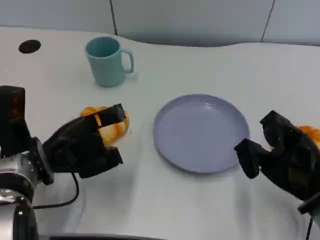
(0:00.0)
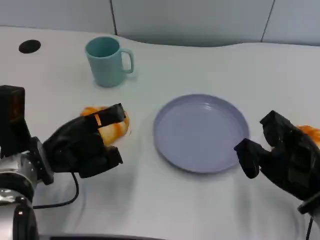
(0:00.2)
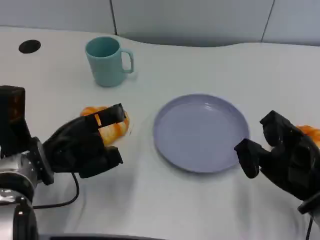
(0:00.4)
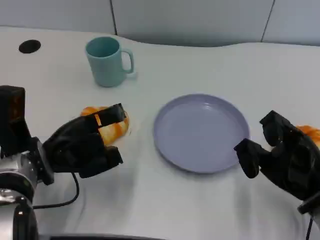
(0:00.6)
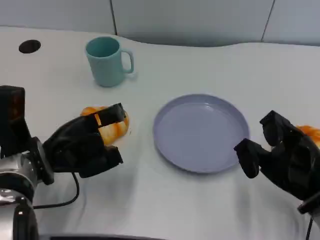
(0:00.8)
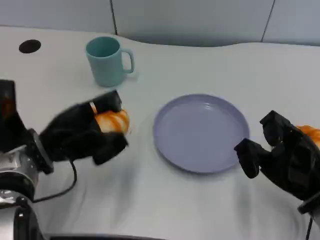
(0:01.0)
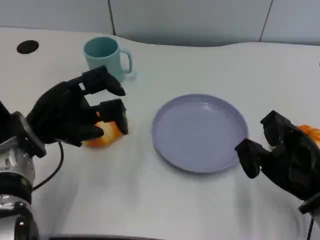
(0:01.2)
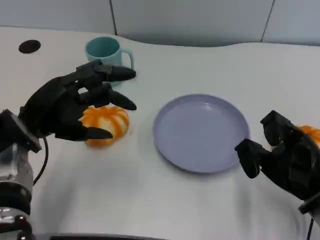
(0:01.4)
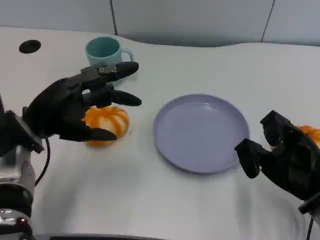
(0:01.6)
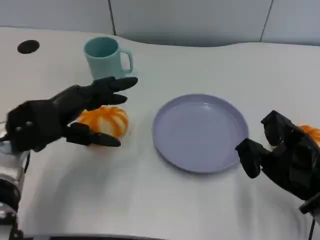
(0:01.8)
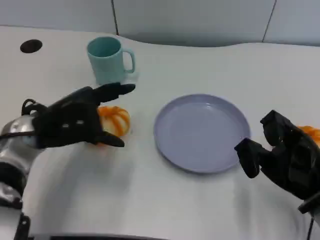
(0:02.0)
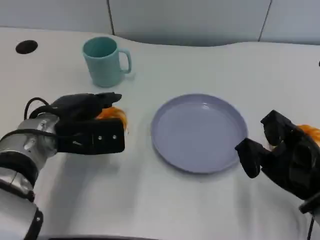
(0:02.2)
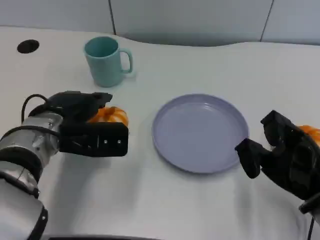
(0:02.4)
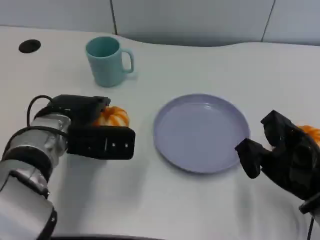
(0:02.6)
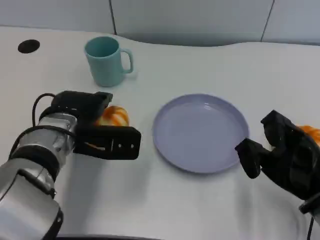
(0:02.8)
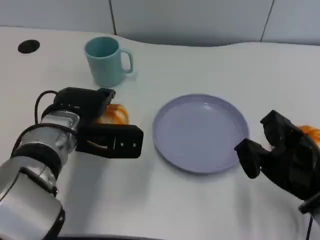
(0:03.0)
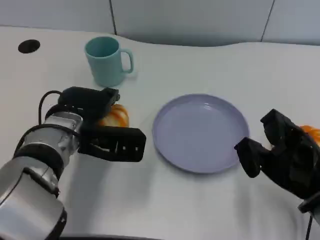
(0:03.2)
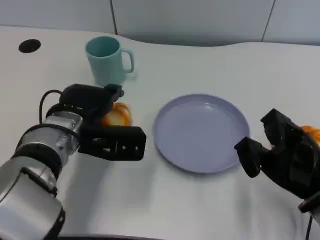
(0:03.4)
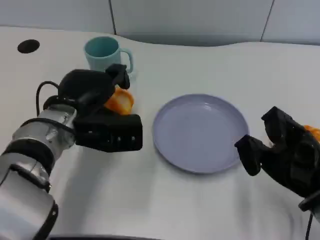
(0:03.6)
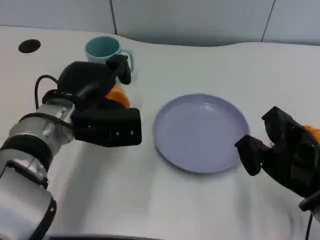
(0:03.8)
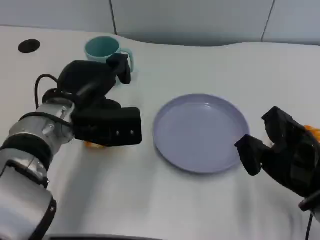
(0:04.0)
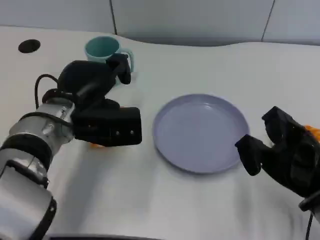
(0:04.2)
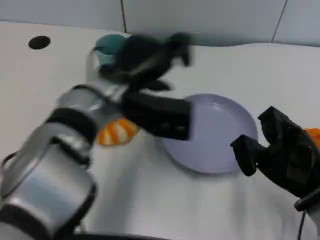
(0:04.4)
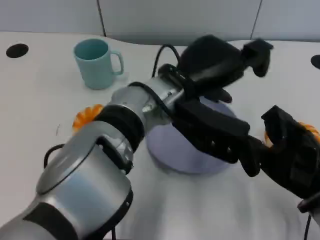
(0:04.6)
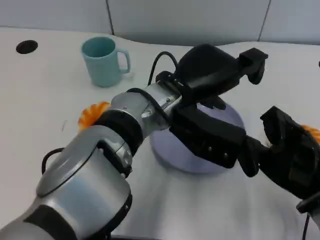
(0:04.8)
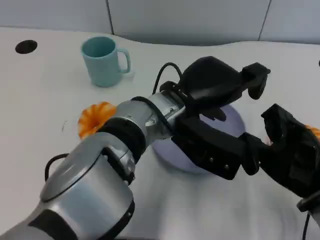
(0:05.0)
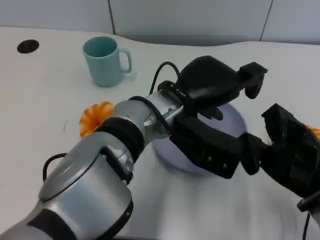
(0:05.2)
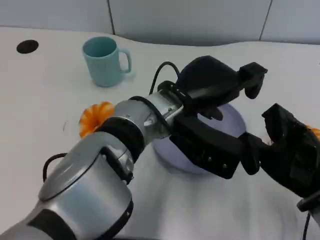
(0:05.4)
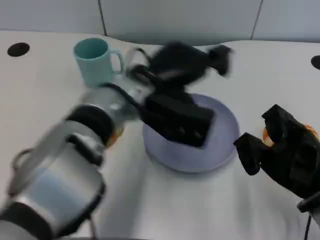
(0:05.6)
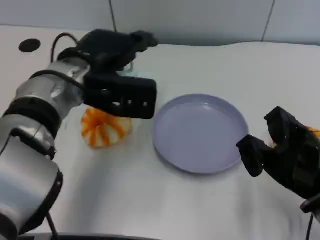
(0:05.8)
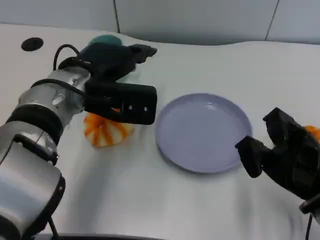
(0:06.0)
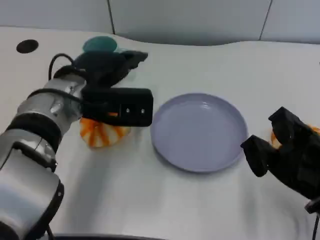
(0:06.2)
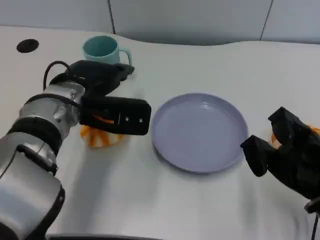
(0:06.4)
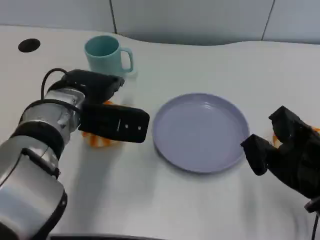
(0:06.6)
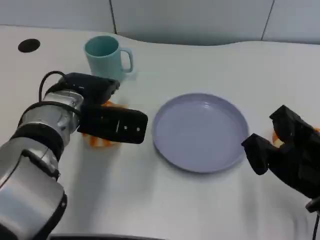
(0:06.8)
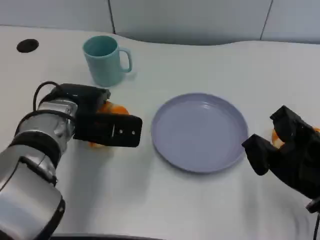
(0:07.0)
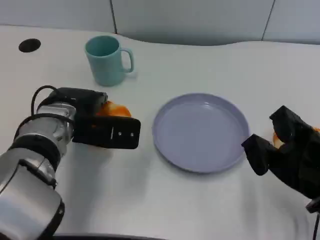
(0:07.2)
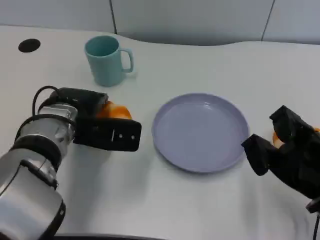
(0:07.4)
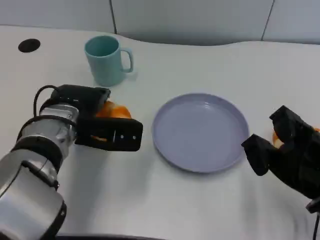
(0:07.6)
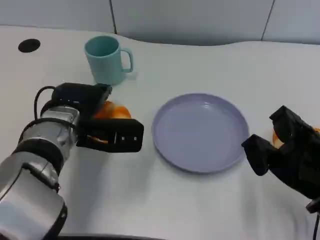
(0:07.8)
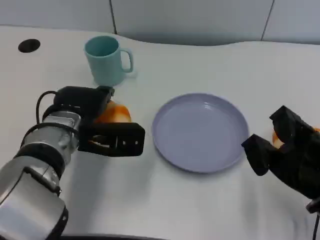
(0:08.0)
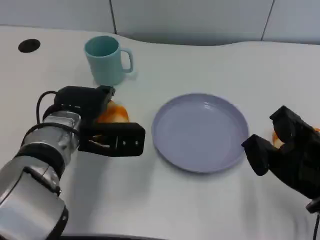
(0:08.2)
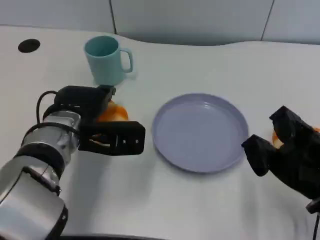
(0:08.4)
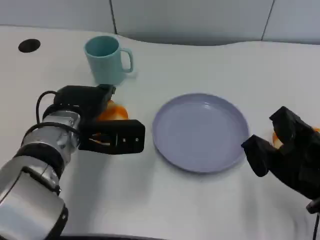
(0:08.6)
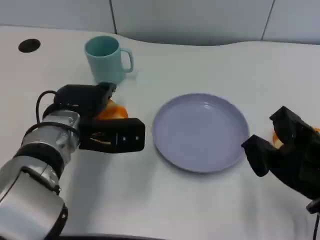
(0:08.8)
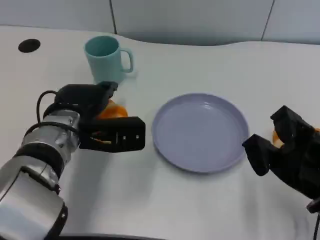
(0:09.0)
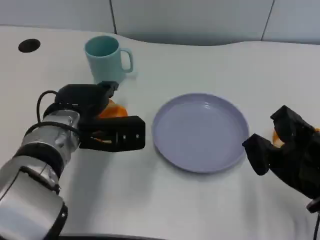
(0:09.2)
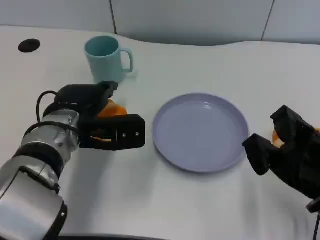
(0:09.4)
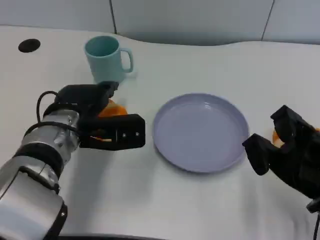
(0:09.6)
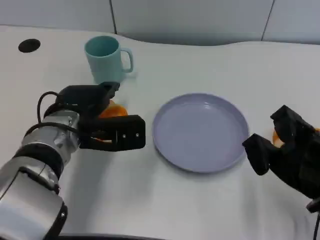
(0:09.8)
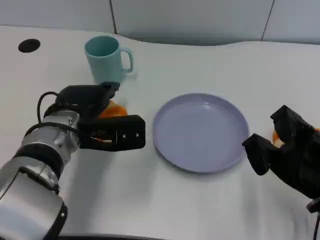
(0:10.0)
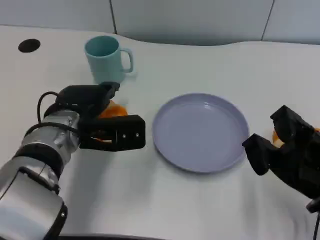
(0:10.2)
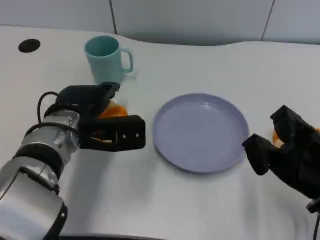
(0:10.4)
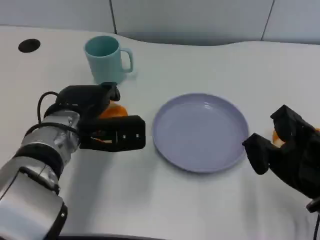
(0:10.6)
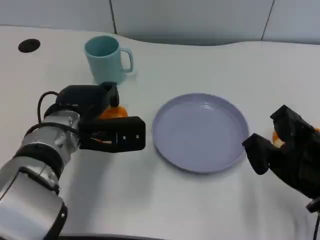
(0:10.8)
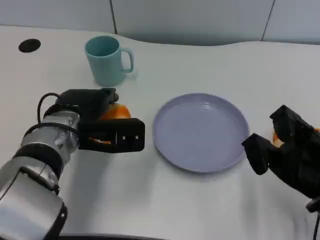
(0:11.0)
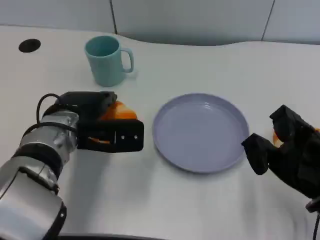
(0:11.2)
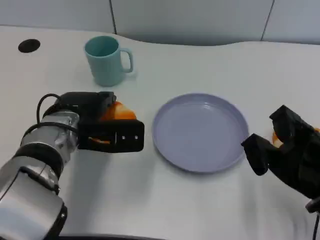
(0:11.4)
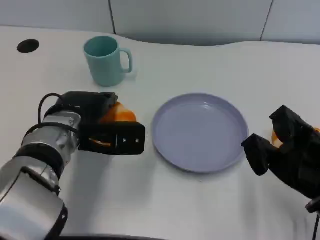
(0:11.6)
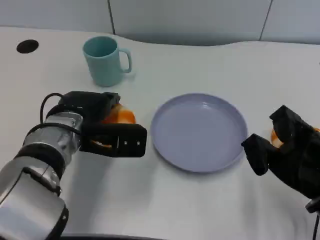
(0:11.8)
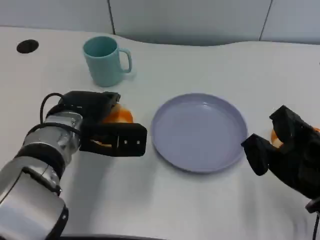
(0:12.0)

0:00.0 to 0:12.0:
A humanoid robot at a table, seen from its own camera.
Task of the whole recording: Grasp the bread from the table and place it into the plate.
0:00.0 to 0:01.6: The left hand shifts about 5 cm upward.
0:01.6 to 0:03.0: The left hand moves to the right, some 5 cm.
0:03.0 to 0:04.4: The left hand heads to the right and upward, covering roughly 15 cm.
0:04.4 to 0:06.0: The left hand travels to the left by approximately 10 cm.
0:06.0 to 0:07.6: The left hand heads downward, covering about 5 cm.
0:07.6 to 0:09.0: The hands move only a little.
0:09.0 to 0:10.4: Both hands stay about where they are.
0:10.4 to 0:12.0: The hands stay close to where they were, moving slightly.

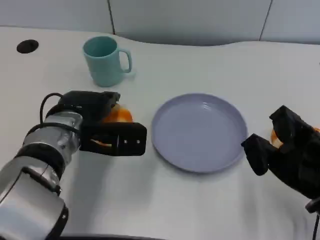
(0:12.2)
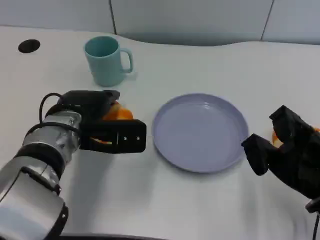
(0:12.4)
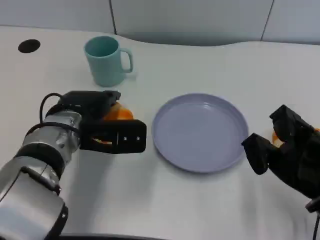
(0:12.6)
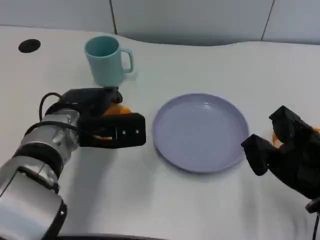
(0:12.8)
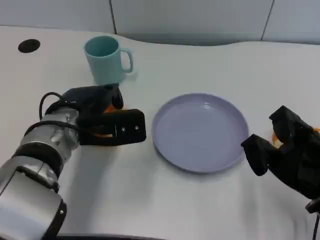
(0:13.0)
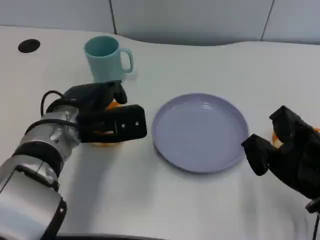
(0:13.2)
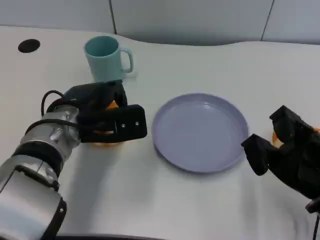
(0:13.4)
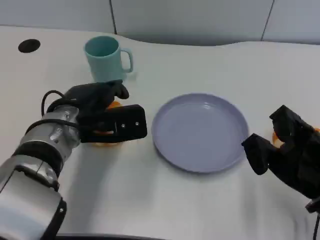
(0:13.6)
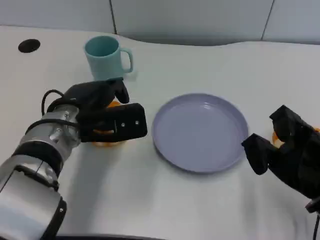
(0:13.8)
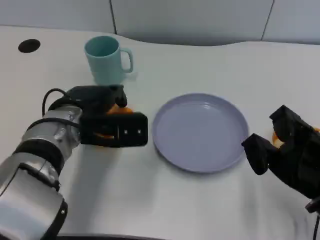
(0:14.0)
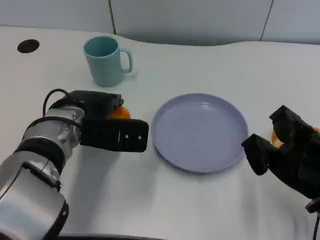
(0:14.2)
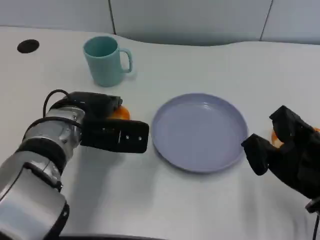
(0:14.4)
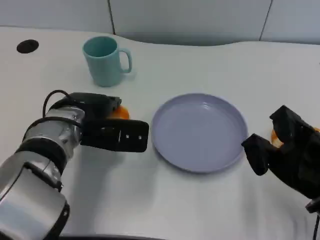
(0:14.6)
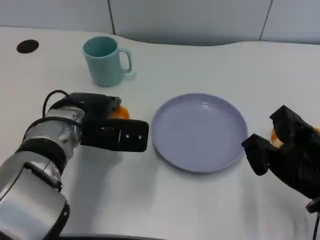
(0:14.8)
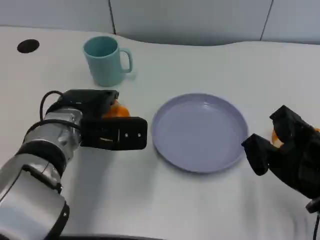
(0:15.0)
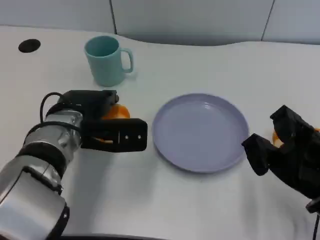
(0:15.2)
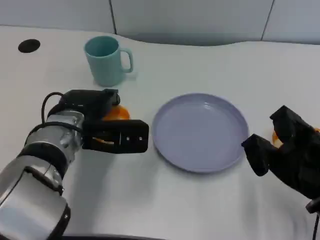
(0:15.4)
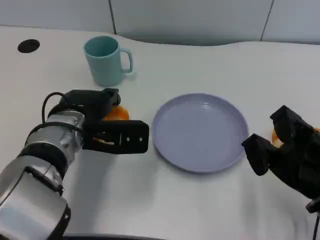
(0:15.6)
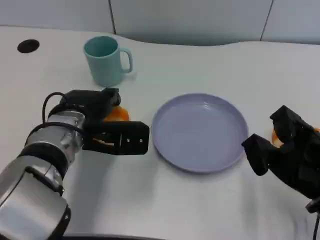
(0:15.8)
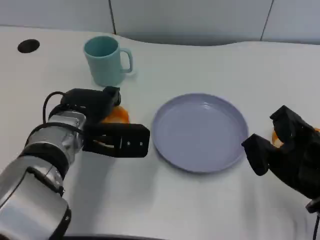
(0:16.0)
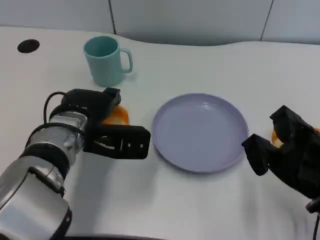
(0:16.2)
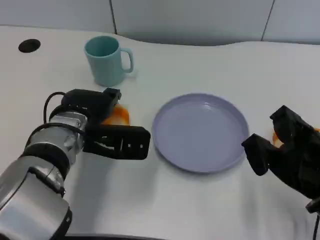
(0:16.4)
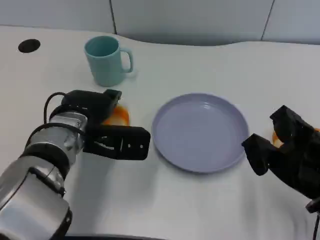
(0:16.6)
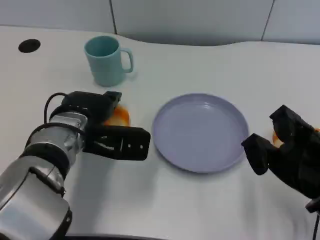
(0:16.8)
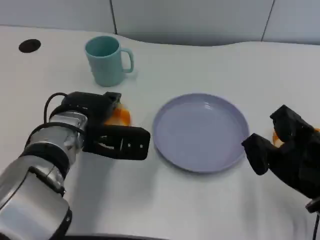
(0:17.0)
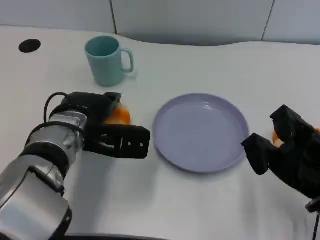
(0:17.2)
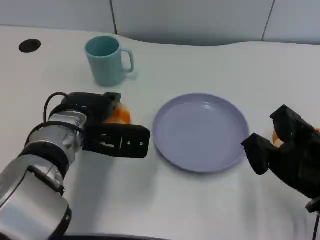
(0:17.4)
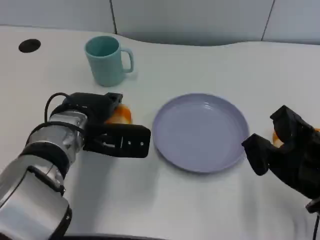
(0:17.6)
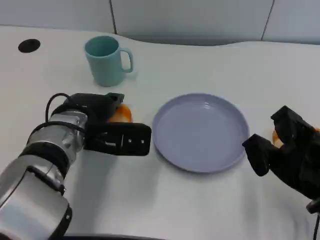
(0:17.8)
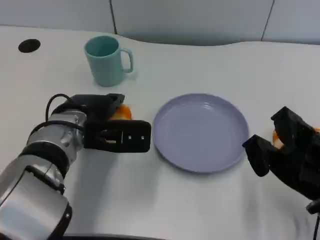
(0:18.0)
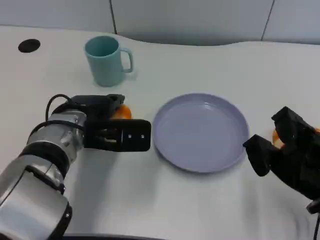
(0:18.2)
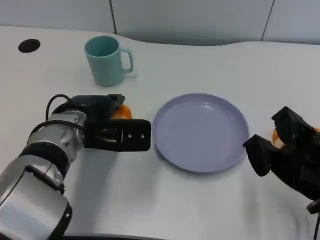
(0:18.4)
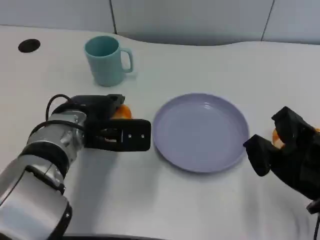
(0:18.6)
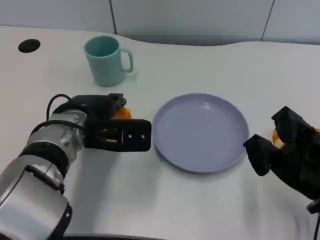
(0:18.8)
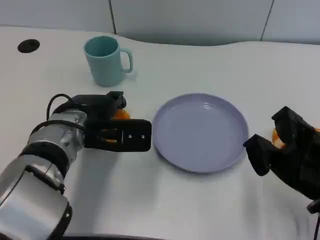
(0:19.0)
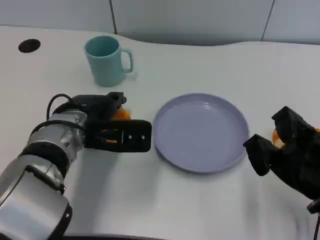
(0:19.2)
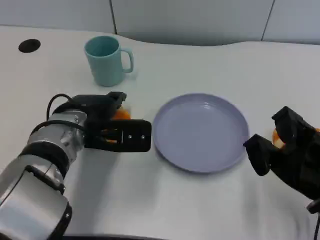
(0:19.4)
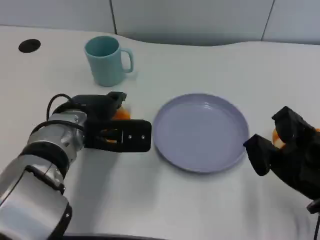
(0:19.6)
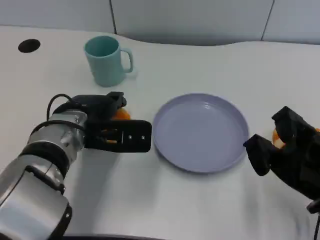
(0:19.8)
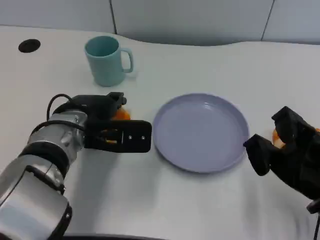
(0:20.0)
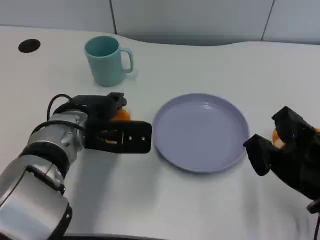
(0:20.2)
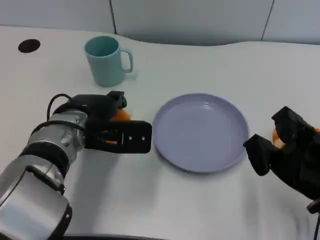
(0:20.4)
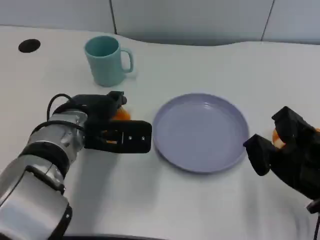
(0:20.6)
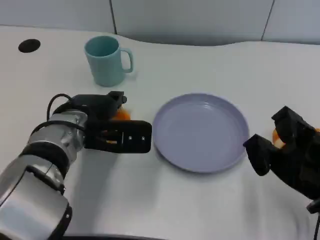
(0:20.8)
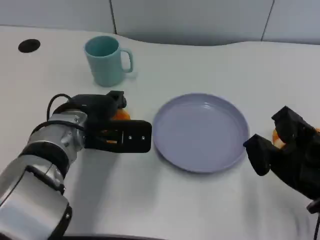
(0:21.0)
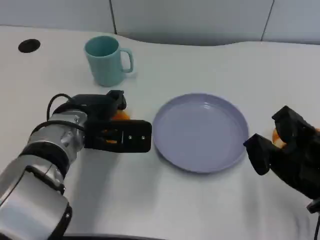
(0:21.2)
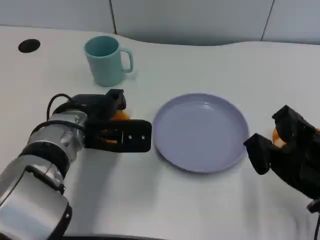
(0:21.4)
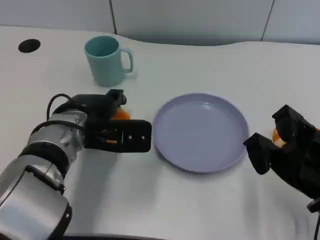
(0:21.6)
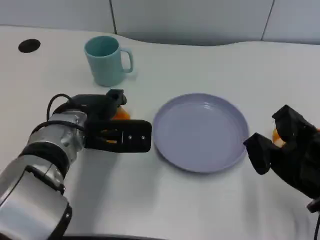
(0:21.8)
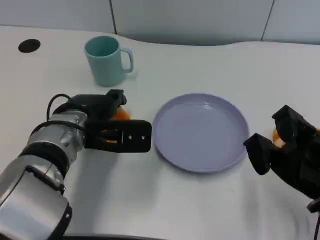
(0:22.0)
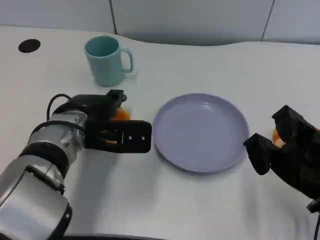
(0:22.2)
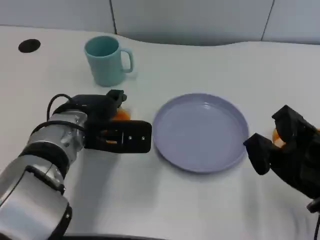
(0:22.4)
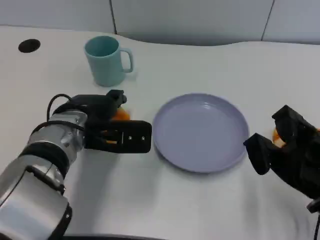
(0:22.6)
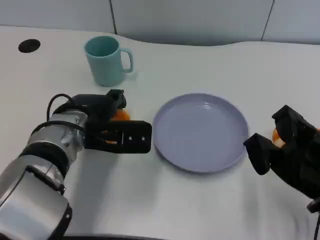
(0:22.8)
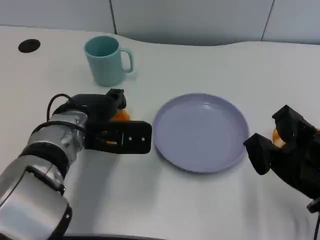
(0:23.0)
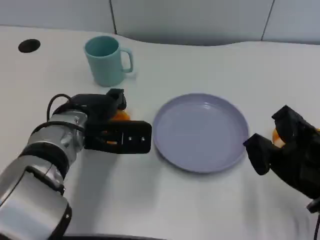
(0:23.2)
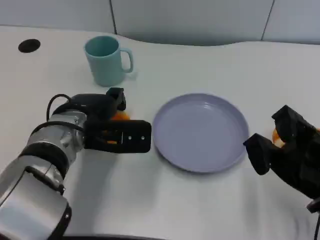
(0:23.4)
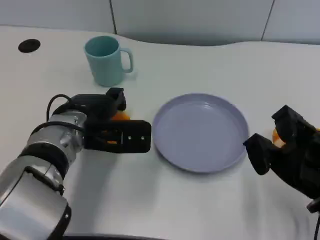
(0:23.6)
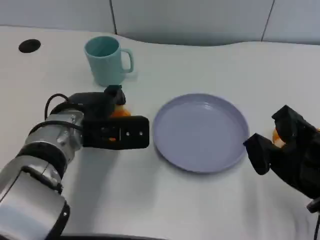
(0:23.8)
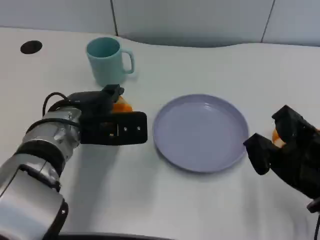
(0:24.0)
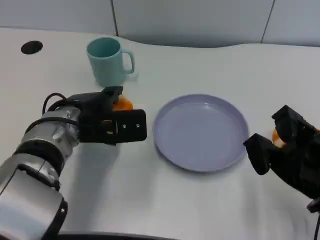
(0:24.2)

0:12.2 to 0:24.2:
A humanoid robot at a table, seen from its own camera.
Task of the whole recording: Grasp the bread from the table and place it into the plate.
0:12.2 to 0:13.8: The hands stay close to where they were, moving slightly.
0:15.2 to 0:18.2: The hands make only small movements.
0:18.2 to 0:22.6: Both hands stay about where they are.
0:22.6 to 0:24.2: The hands move only a little.
